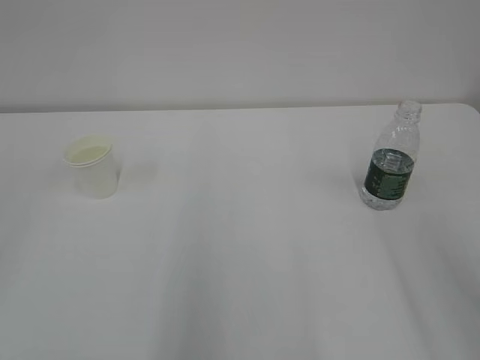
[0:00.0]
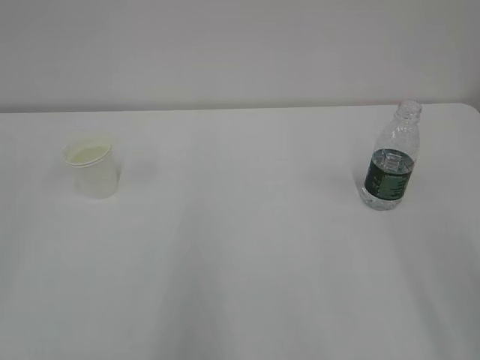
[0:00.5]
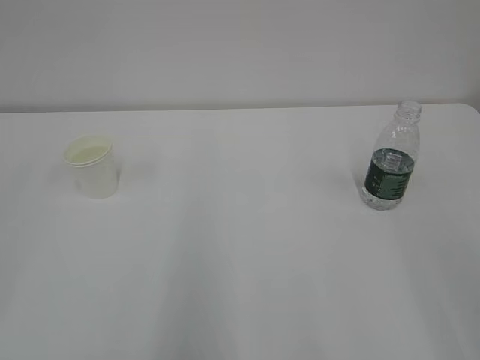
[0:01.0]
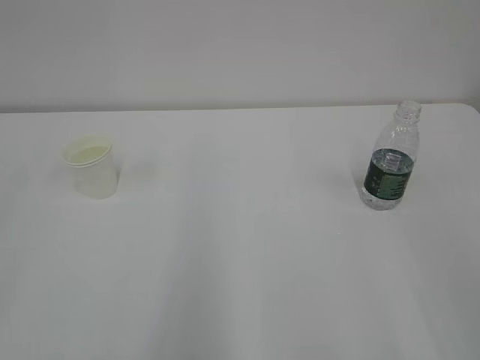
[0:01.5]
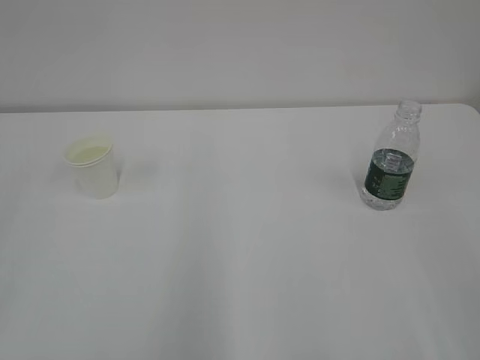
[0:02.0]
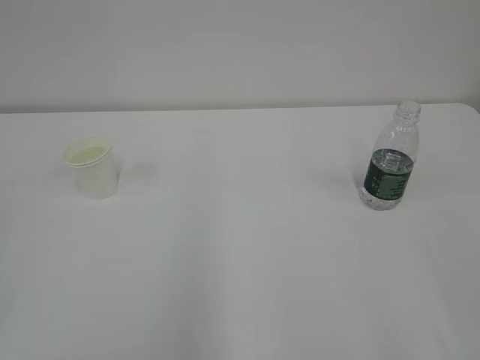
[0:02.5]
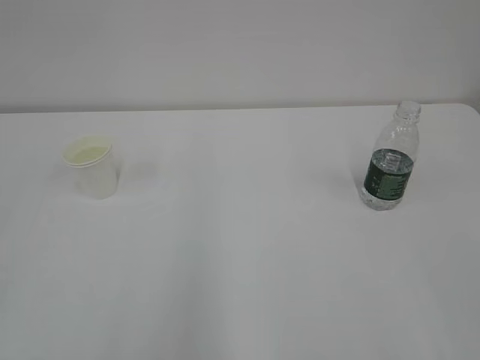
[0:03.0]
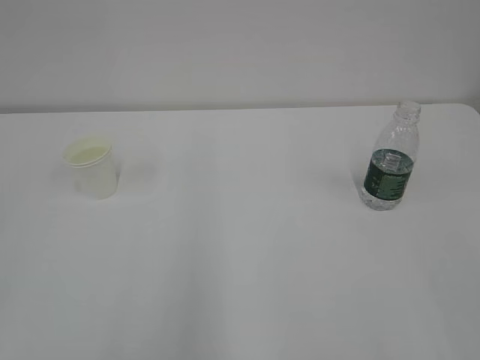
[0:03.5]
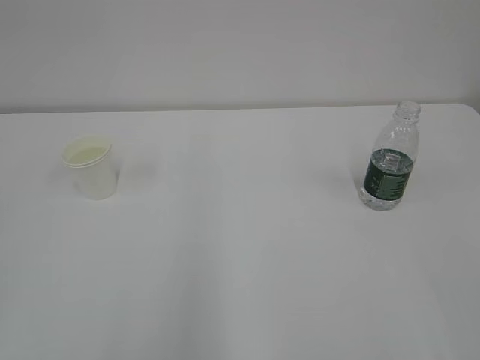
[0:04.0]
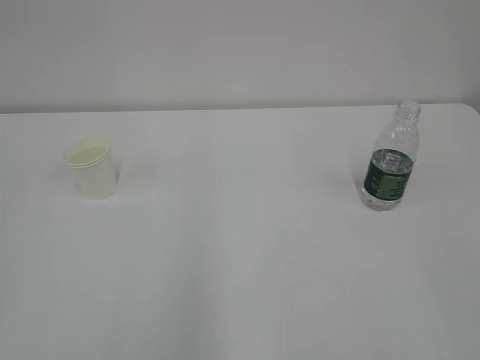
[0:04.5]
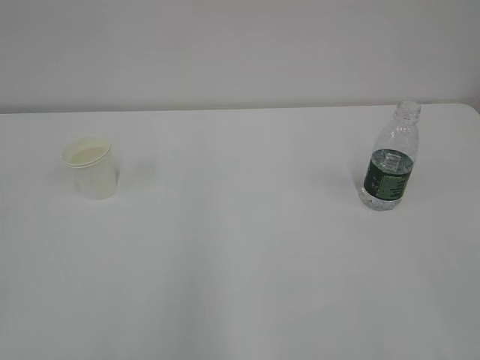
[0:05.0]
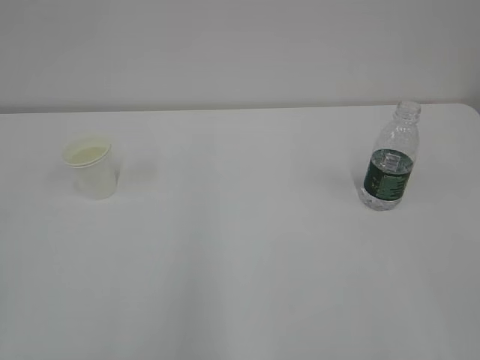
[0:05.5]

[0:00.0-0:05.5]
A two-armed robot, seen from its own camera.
0:03.5 to 0:05.5: Both grippers stay put.
